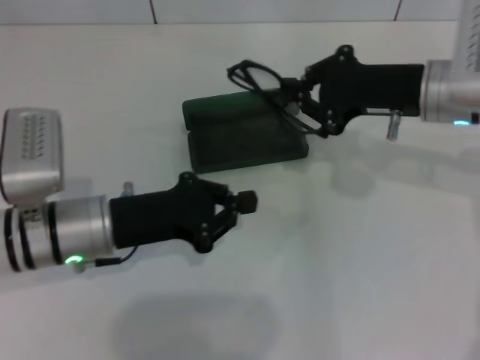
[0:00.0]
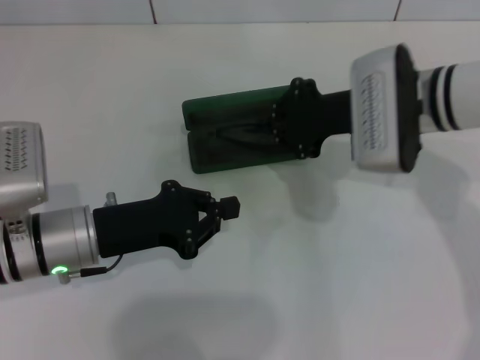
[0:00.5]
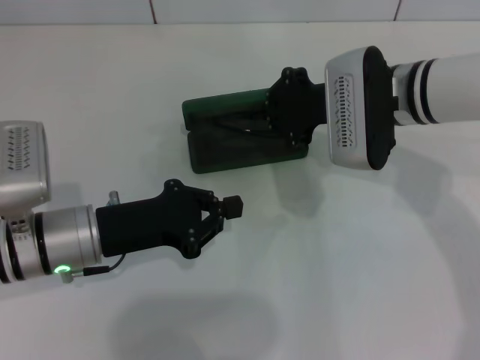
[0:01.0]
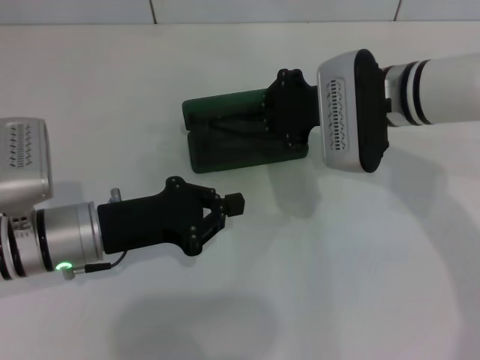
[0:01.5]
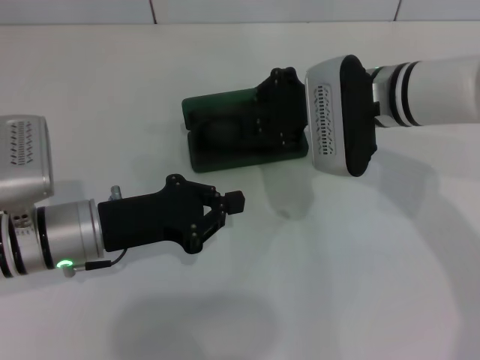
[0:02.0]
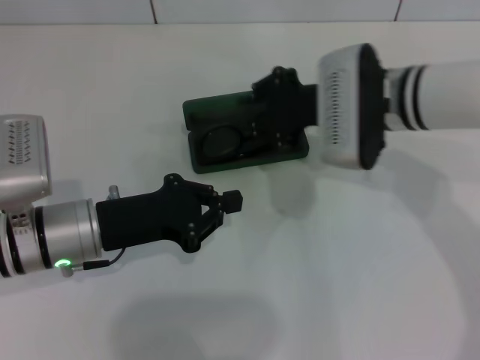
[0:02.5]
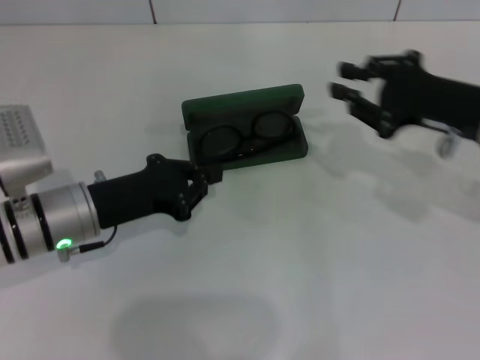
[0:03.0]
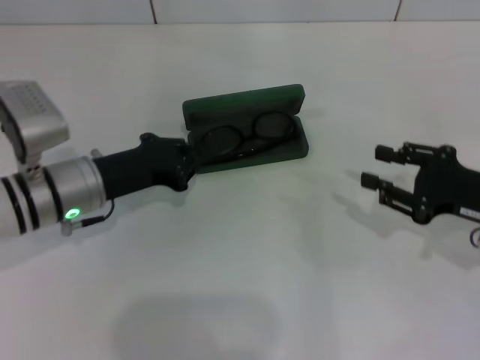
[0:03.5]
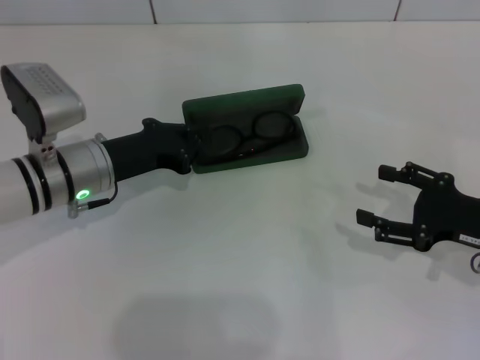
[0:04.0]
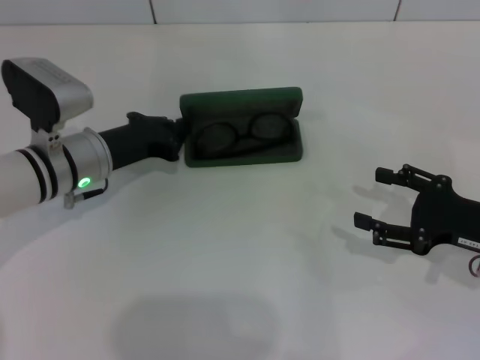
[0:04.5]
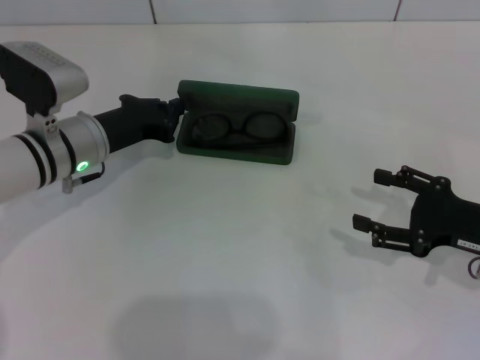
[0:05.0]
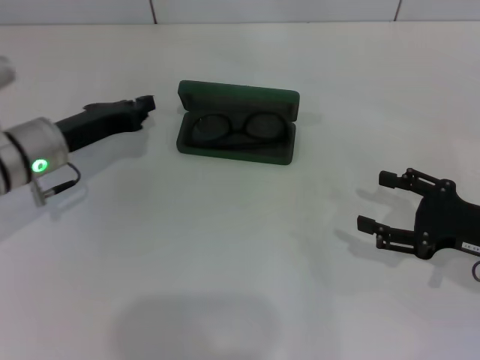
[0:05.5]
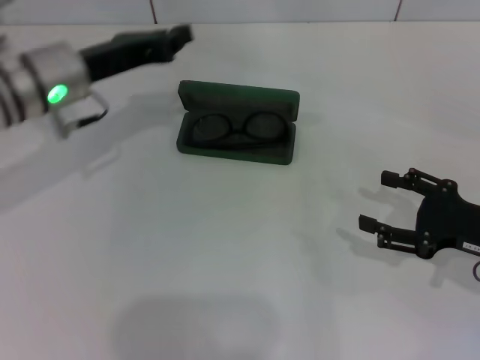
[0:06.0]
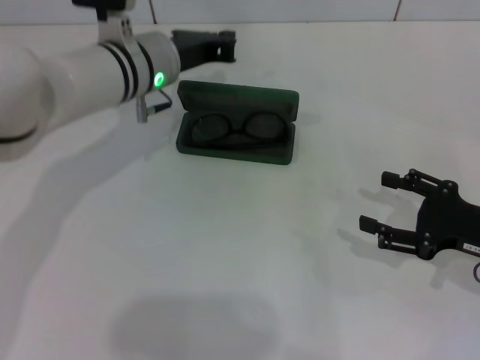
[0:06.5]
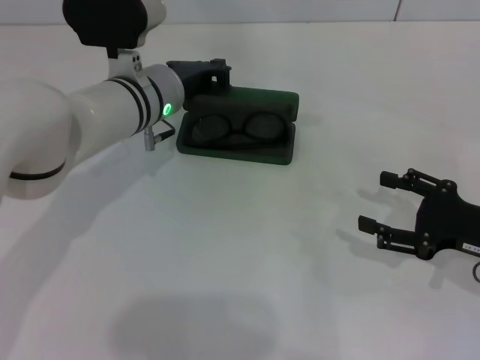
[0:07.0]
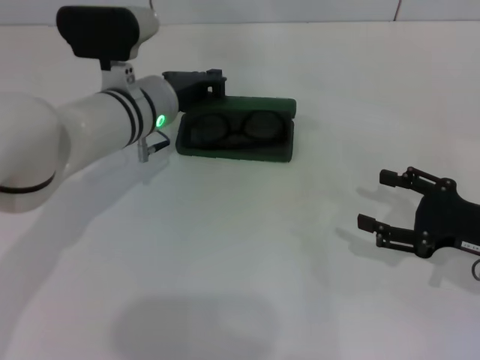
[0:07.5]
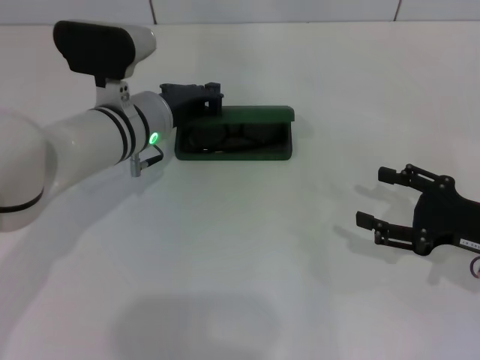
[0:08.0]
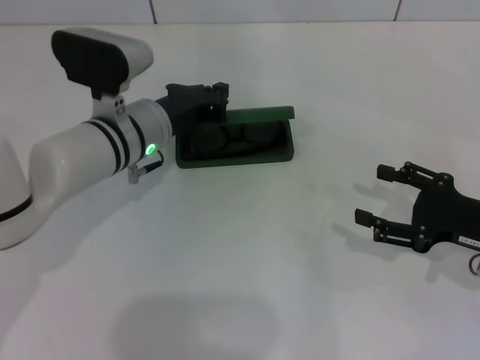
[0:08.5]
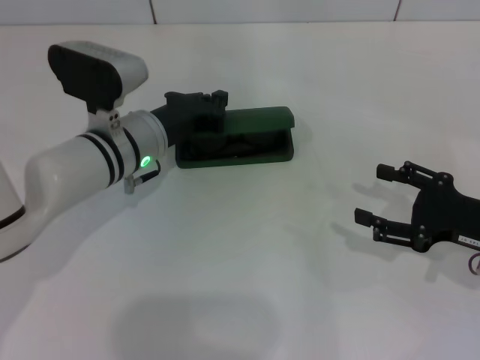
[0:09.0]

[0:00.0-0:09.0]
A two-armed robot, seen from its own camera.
Step, 0:00.0 to 0:02.5: Put the glasses into the case with your right hand.
0:00.0 to 0:02.0: The right gripper heads to the left, covering about 10 cm.
0:02.0 to 0:04.5: The left gripper goes approximately 10 cm forward; the right gripper heads to the right, backward and downward, covering approximately 25 cm, and opens up.
0:04.5 to 0:07.0: The left gripper moves to the right and forward, about 10 cm.
0:07.0 to 0:09.0: The left gripper shifts by about 5 cm.

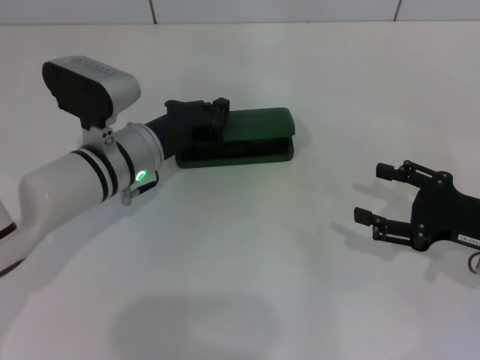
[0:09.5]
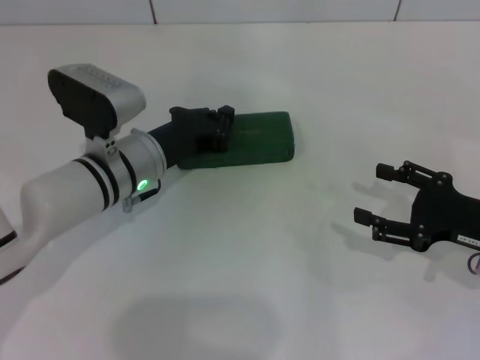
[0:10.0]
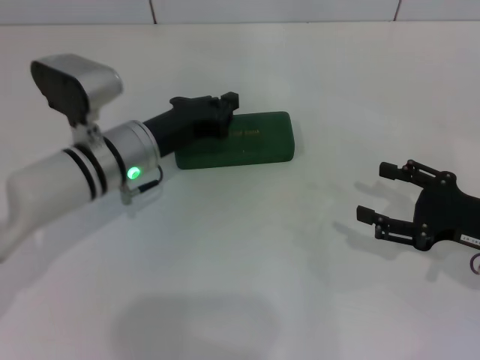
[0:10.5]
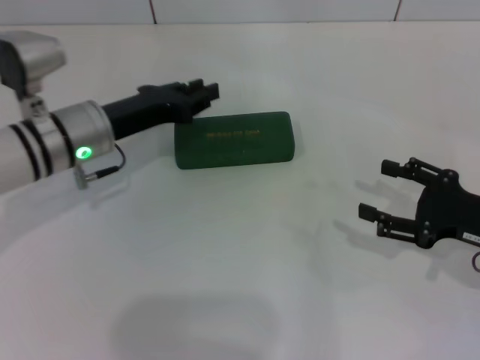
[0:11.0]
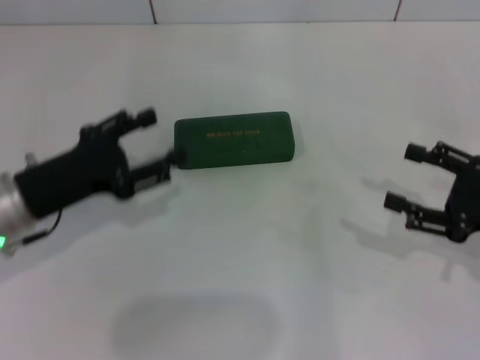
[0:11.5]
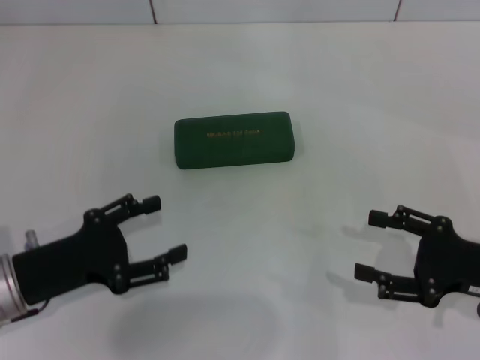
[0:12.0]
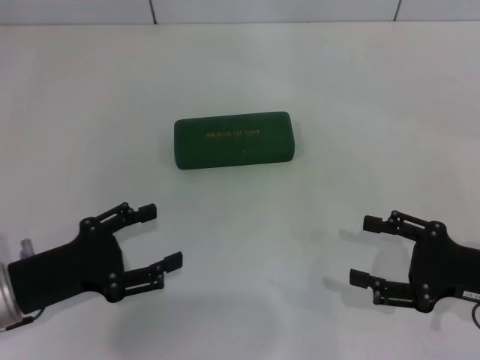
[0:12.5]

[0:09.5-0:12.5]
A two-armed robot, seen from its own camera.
0:09.5 to 0:11.0: The left gripper travels to the left by some 5 cm.
0:11.0 to 0:12.5: The left gripper travels backward and to the left by some 15 cm, and opens up.
